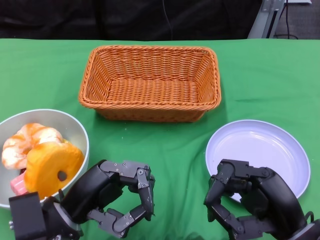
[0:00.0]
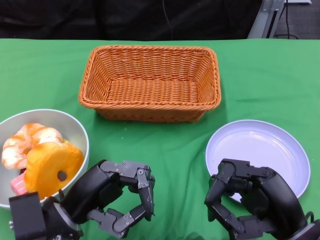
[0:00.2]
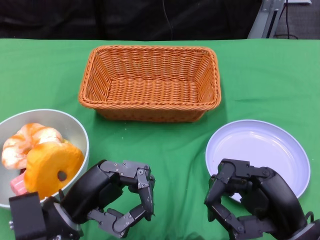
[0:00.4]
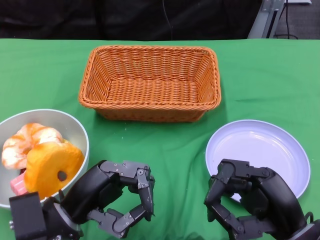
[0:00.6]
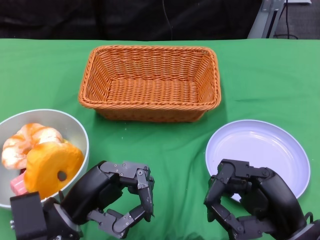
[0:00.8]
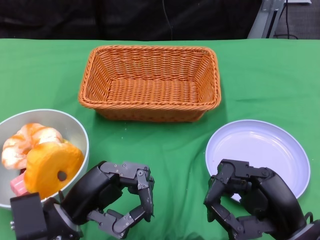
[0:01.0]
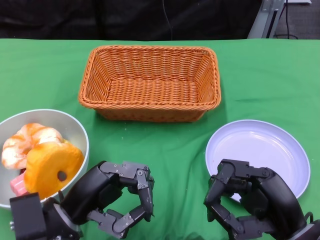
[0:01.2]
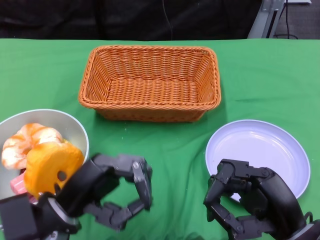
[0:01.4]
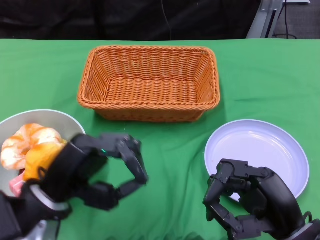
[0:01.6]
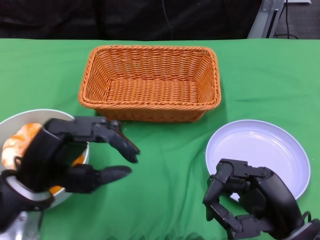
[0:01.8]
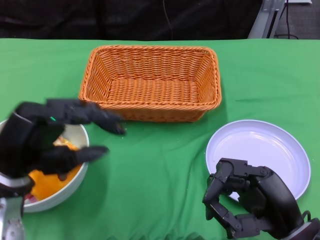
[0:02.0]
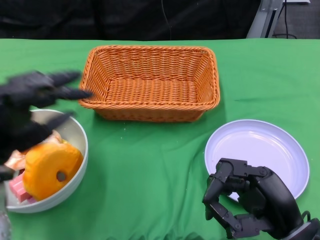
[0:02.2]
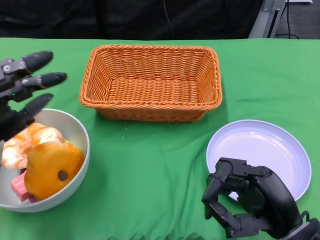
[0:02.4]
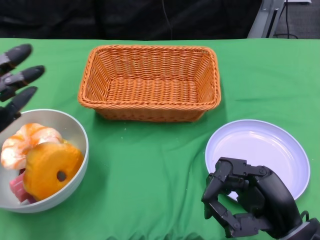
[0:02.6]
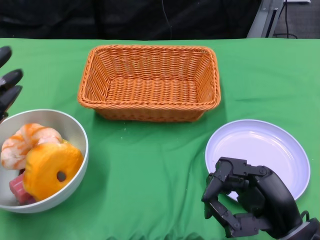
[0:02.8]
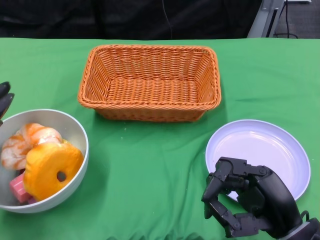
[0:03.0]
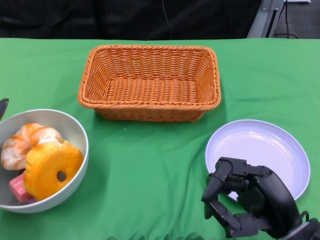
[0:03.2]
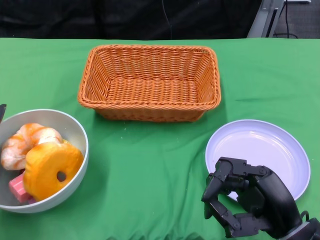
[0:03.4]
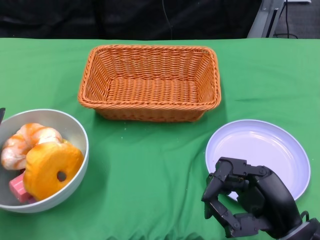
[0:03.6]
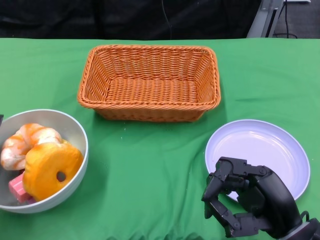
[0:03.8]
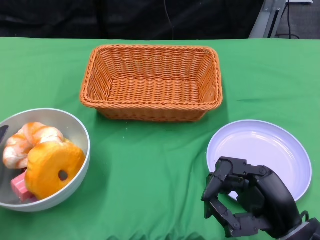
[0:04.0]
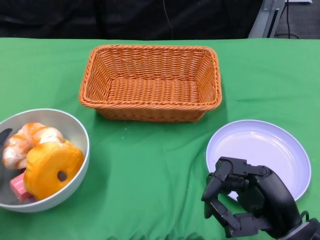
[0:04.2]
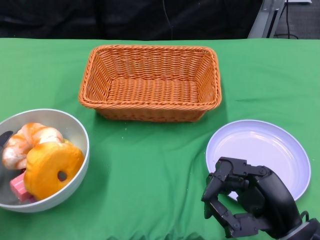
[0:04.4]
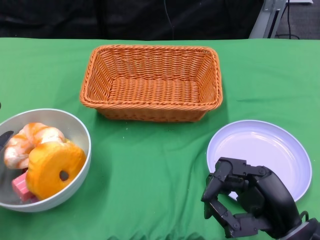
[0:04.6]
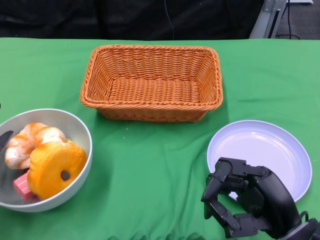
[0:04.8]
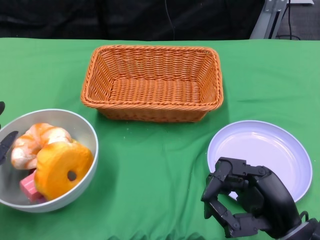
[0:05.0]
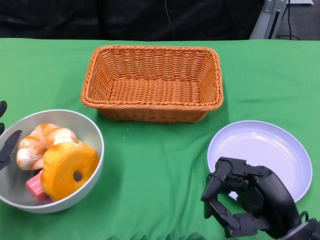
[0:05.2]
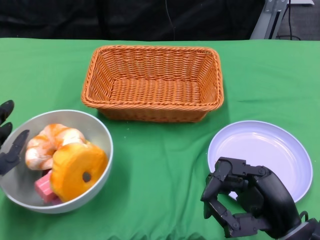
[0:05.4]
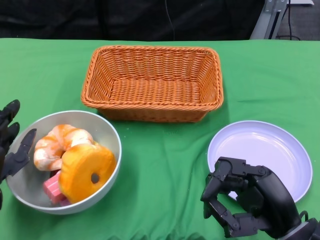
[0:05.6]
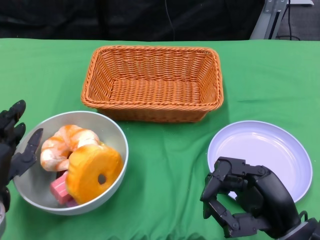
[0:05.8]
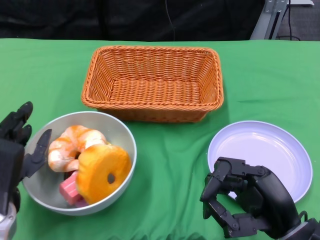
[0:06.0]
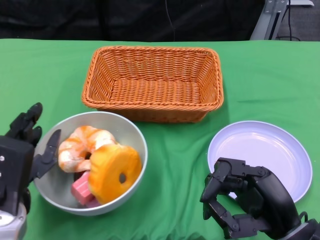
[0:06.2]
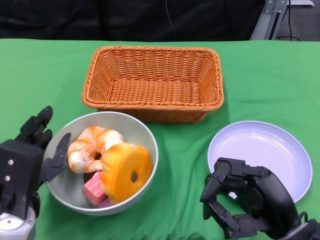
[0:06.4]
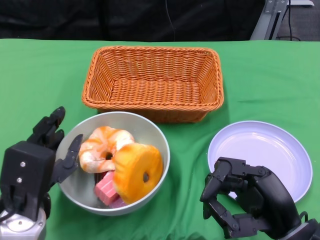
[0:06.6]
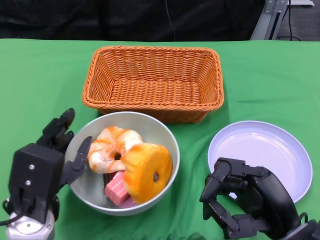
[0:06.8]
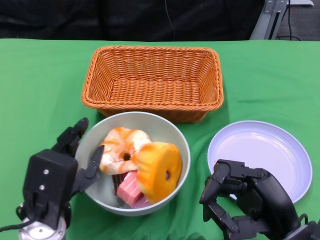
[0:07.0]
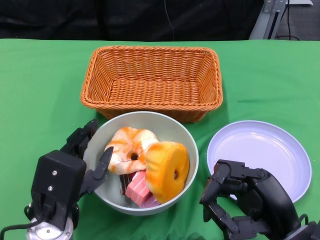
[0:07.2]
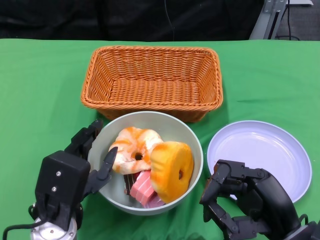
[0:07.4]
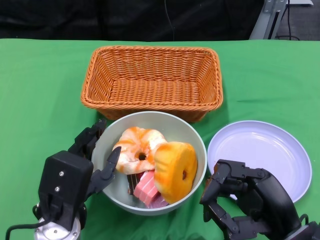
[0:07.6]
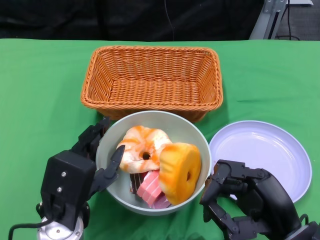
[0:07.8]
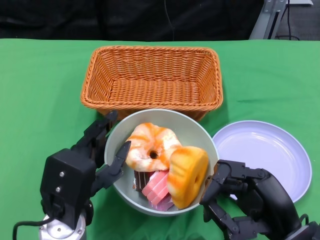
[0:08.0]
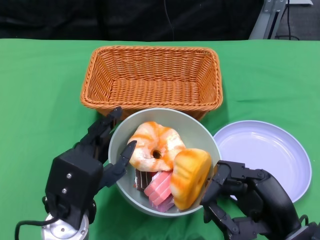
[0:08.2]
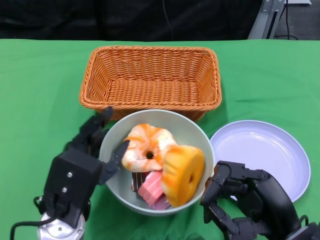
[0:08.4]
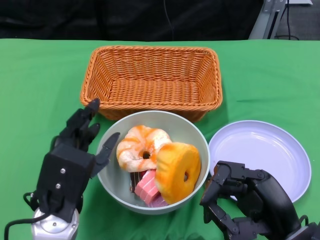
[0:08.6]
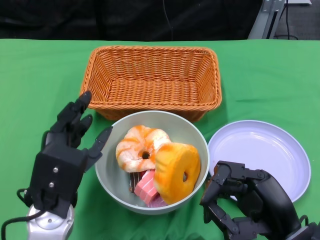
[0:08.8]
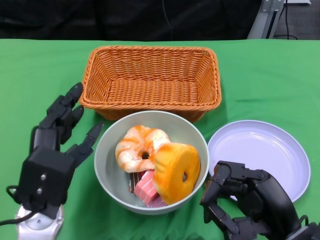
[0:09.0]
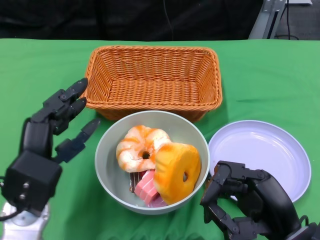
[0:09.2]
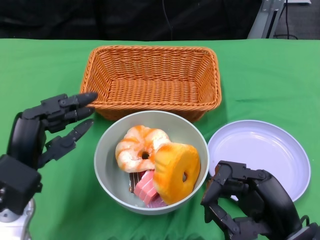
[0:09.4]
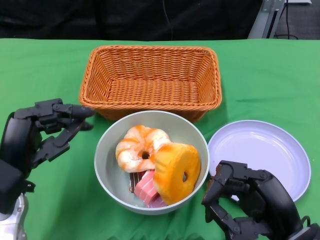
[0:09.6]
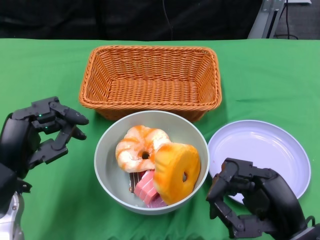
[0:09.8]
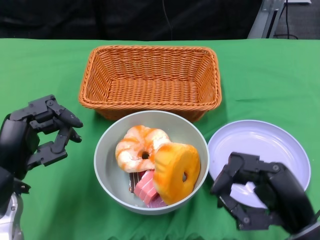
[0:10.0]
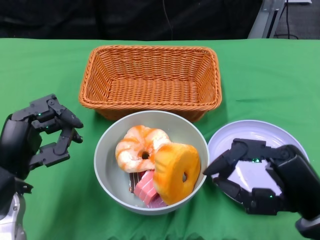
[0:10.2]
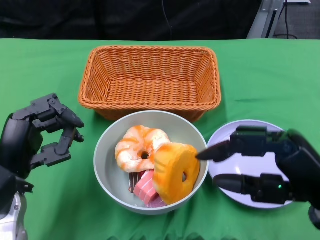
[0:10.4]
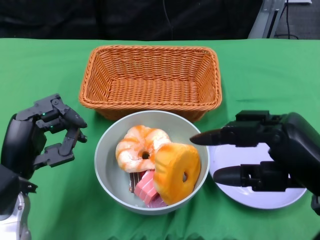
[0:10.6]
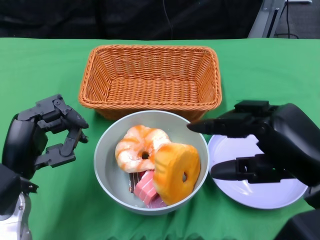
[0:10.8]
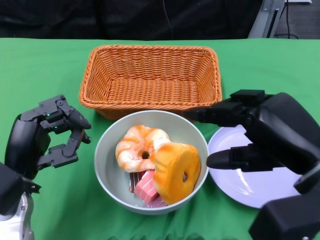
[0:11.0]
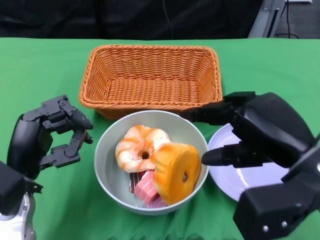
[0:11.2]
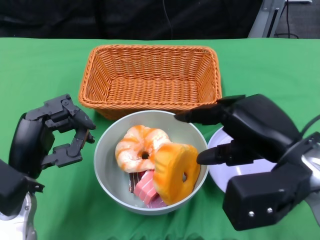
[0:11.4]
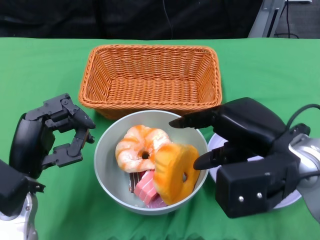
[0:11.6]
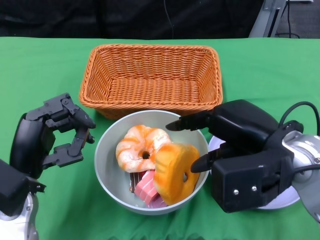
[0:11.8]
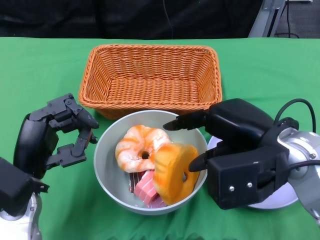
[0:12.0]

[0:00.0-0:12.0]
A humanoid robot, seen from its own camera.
Step, 0:00.0 to 0:08.4: Push the bowl to the center of the table using the left gripper.
0:01.6 to 0:03.0: The left hand travels to the left by approximately 10 cm.
0:04.4 to 0:06.0: The left hand goes approximately 5 cm to the right.
0:06.0 to 0:07.6: The left hand travels to the right by roughly 10 cm.
0:07.6 to 0:09.0: The hands move only a little.
0:09.0 to 0:10.4: The left hand travels to the left by about 5 cm, while the right hand moves upward, roughly 10 cm.
0:10.4 to 0:12.0: The right hand is displaced forward and to the left by approximately 10 cm.

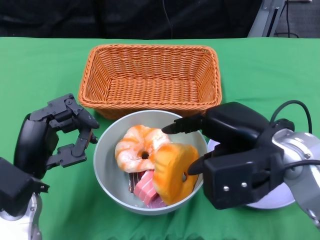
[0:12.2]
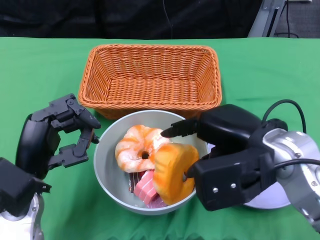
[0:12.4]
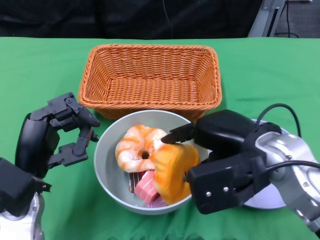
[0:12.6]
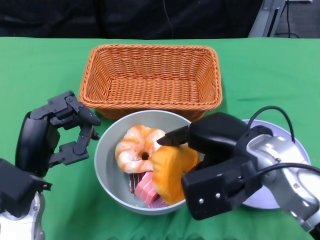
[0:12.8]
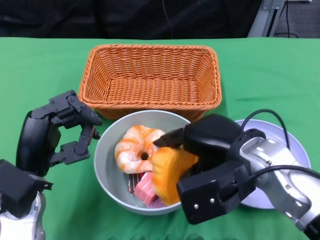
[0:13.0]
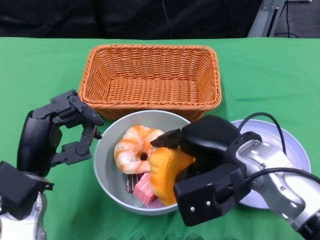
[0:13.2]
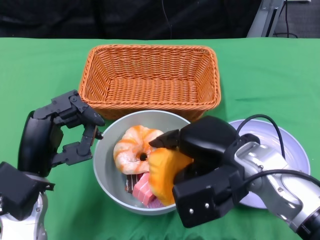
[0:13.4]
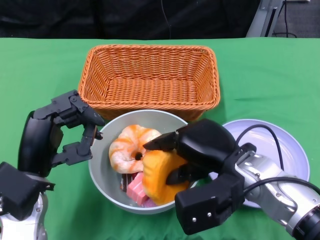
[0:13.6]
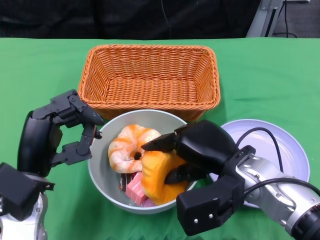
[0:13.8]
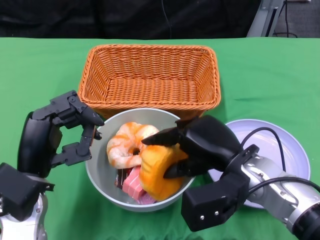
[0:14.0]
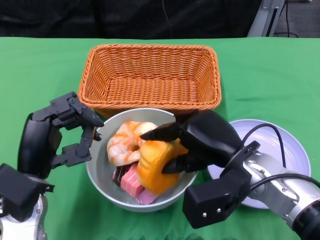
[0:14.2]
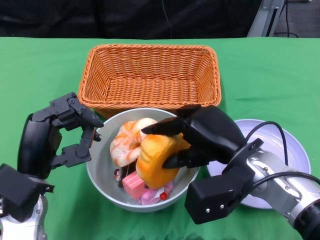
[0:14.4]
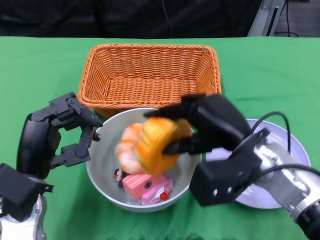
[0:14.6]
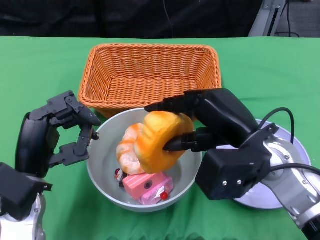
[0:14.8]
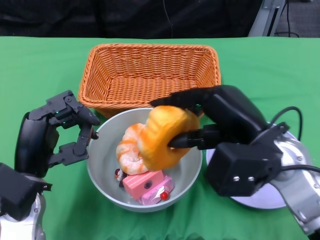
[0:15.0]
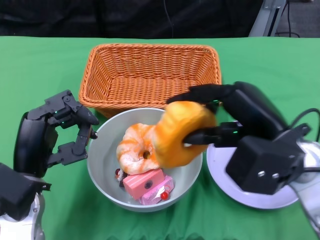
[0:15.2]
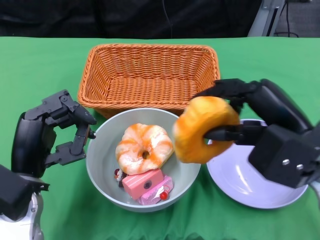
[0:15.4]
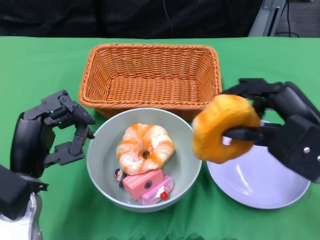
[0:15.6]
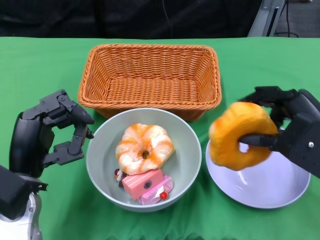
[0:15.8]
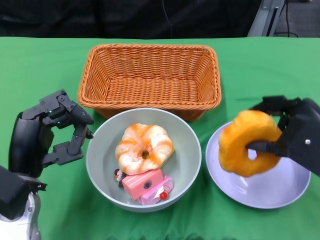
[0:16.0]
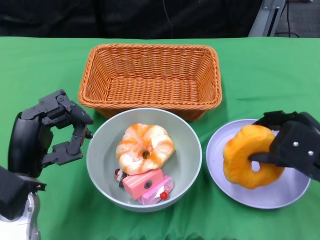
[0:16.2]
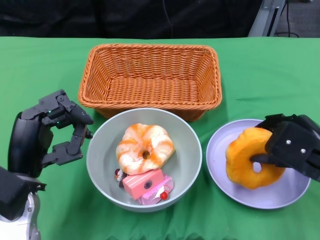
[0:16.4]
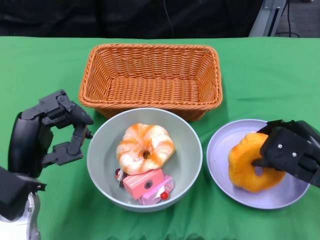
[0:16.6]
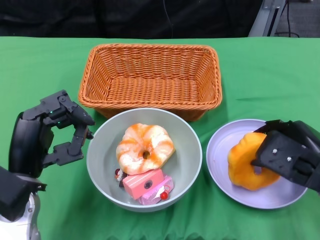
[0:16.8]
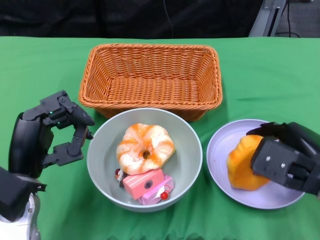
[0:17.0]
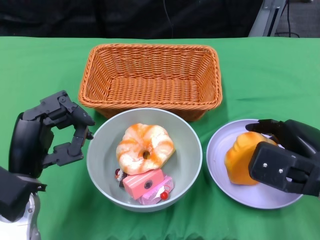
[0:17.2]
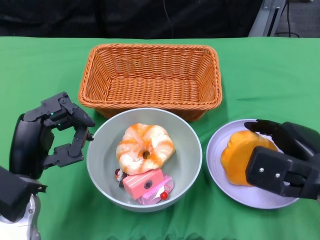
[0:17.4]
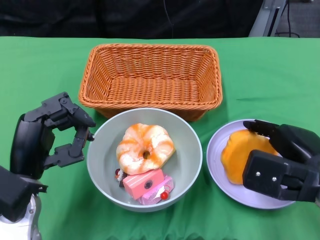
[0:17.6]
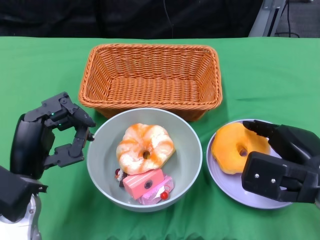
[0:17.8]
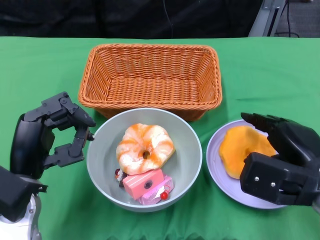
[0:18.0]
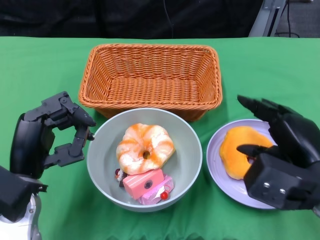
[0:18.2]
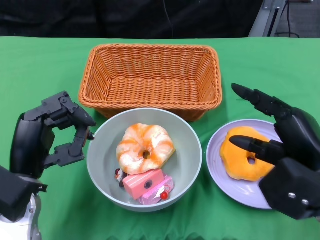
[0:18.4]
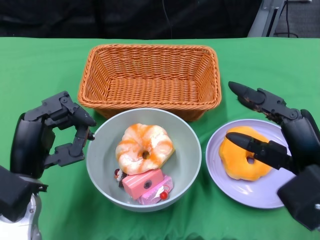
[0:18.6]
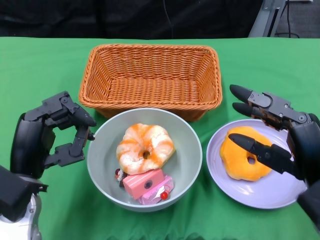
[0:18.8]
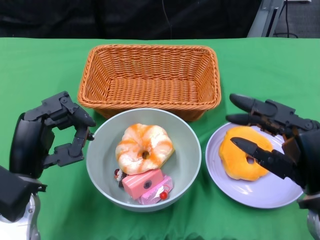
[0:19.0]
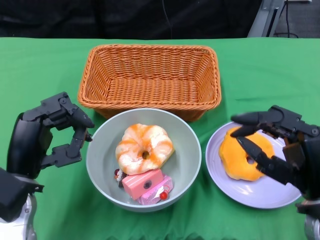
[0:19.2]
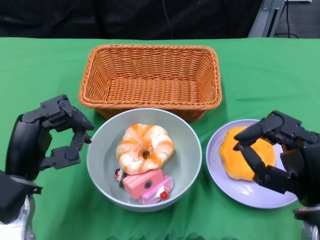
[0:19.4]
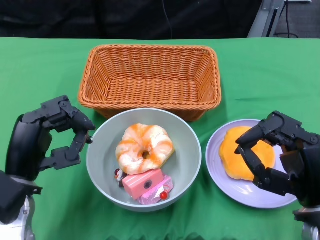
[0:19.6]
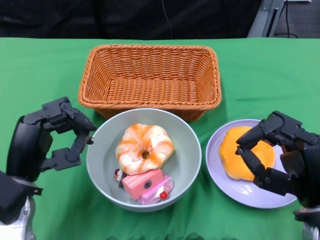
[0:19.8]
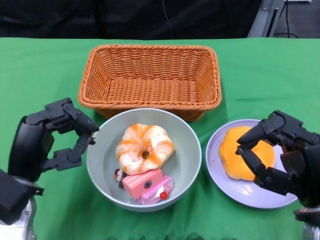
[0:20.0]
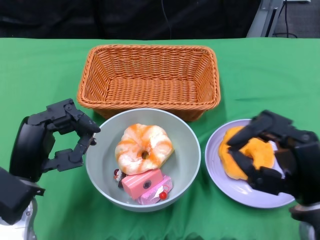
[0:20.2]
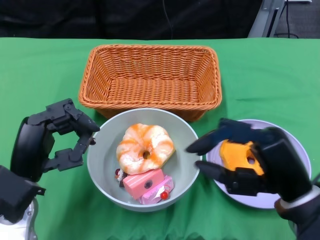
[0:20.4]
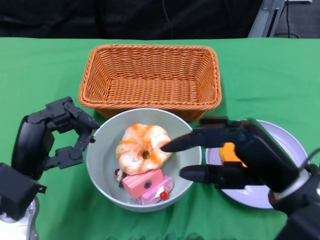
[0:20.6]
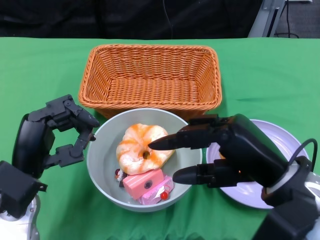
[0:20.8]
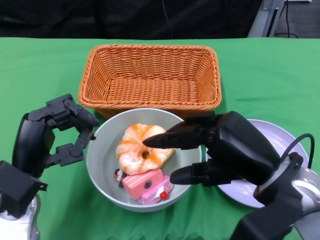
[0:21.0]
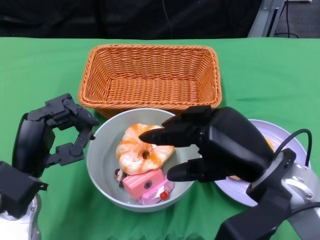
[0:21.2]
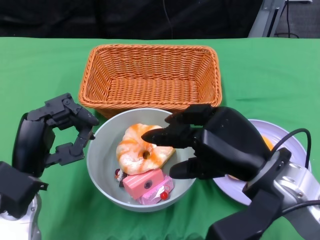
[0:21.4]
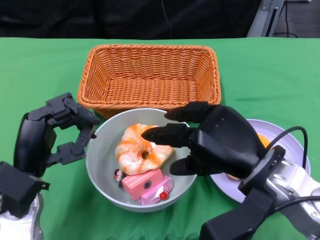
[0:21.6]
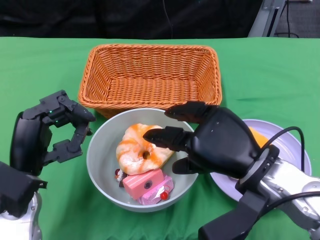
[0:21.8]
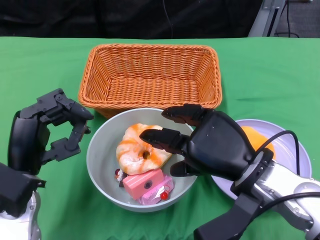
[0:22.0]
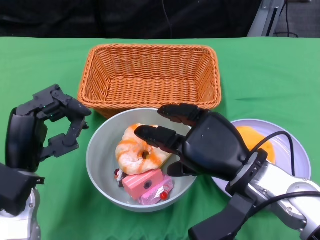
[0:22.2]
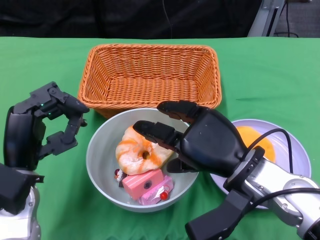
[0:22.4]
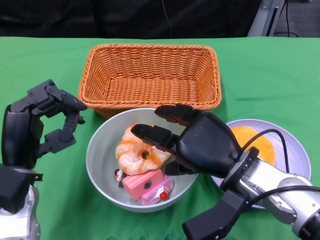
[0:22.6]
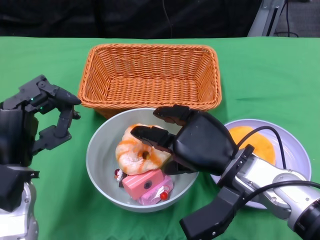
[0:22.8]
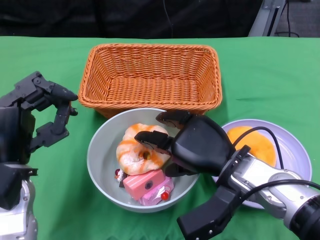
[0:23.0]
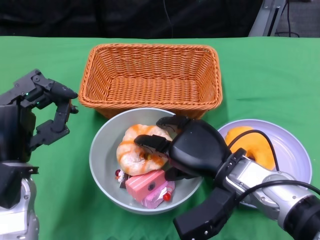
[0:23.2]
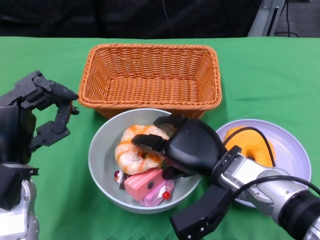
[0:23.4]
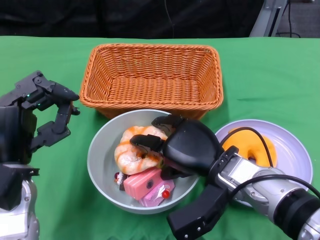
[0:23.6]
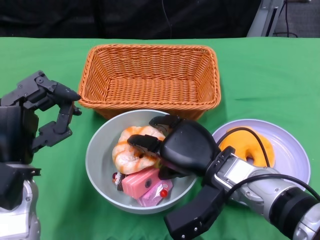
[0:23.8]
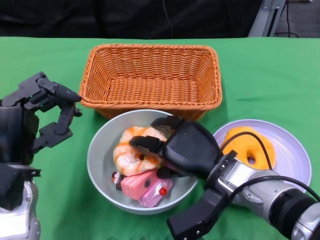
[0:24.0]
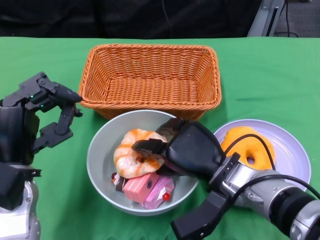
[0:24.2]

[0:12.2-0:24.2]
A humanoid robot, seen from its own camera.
0:12.2 to 0:13.8: The right hand is displaced downward by about 5 cm.
0:13.8 to 0:15.2: The right hand heads upward and to the right, covering some 10 cm.
0:15.2 to 0:16.6: The right hand is displaced to the right and downward by some 10 cm.
0:19.8 to 0:21.2: The right hand heads upward and to the left, covering roughly 10 cm.
0:21.2 to 0:22.6: The right hand shifts about 5 cm downward.
